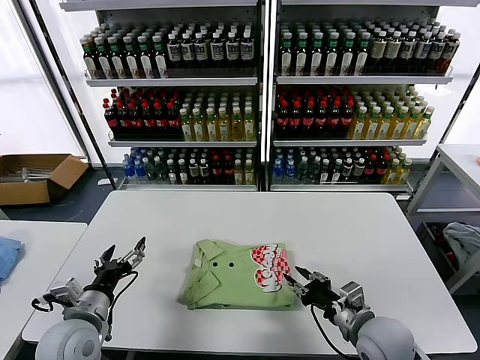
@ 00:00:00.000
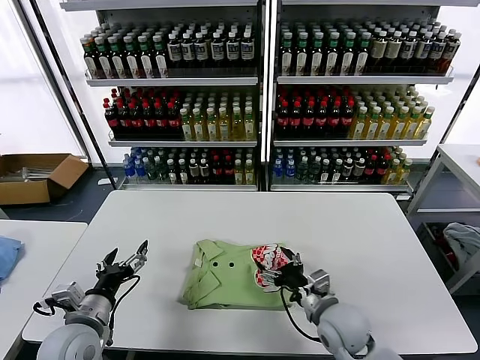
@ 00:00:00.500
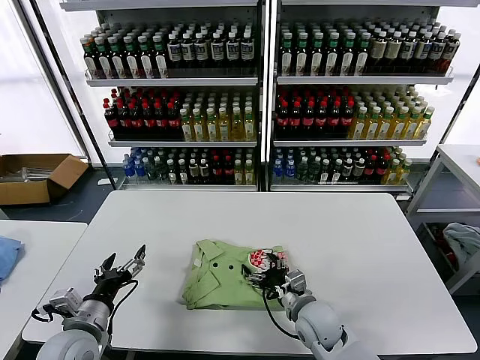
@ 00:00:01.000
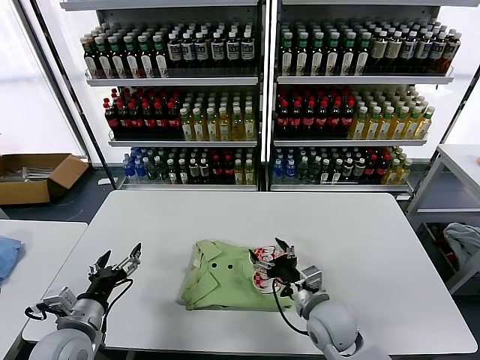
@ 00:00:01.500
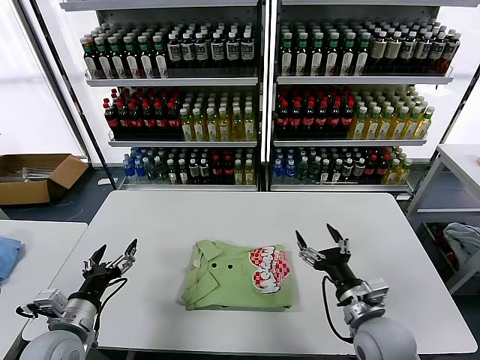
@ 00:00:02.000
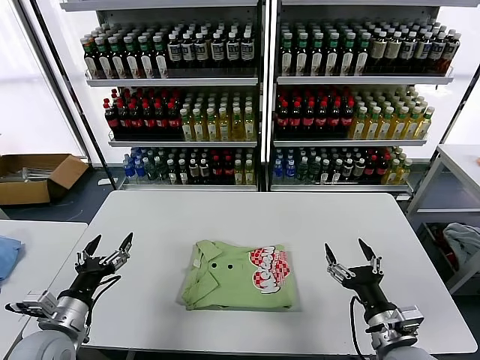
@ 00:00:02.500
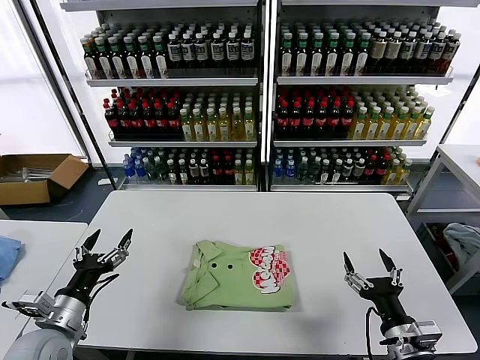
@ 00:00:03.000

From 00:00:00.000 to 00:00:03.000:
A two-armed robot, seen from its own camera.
Task of the whole recording: fold and organize the clothes.
From 00:00:00.000 to 00:00:01.500: The right gripper goes some 10 cm to the left, and opens up.
From 00:00:01.500 to 00:00:03.000: The right gripper heads to the right and backward, covering roughly 20 cm.

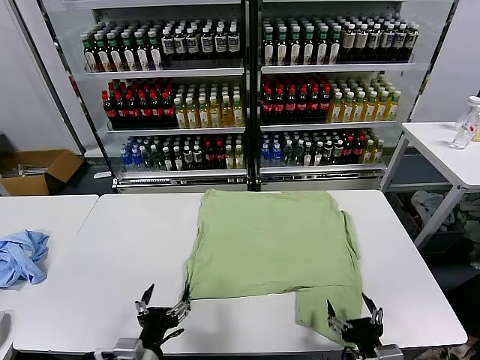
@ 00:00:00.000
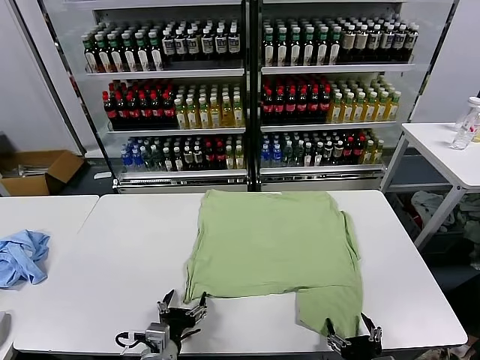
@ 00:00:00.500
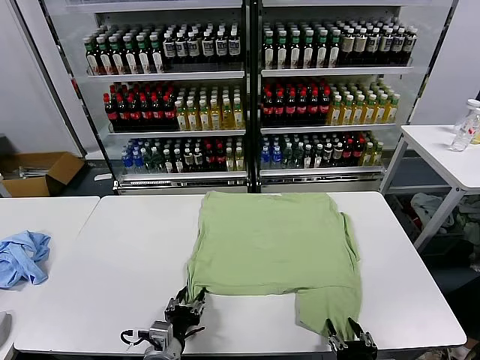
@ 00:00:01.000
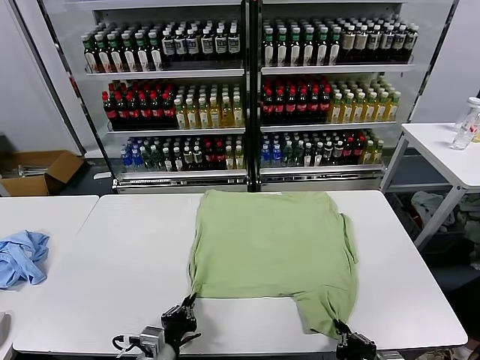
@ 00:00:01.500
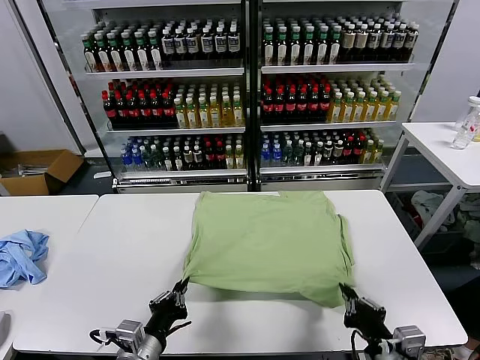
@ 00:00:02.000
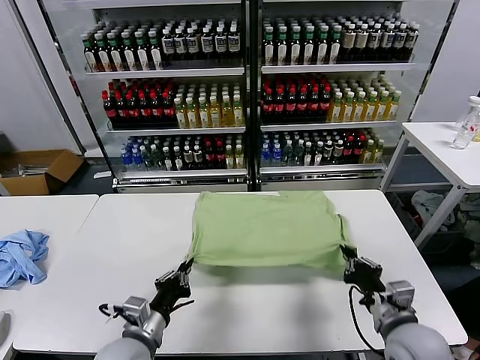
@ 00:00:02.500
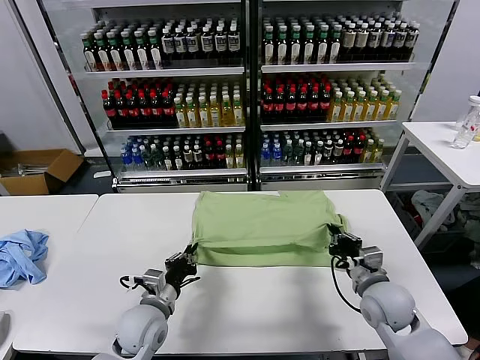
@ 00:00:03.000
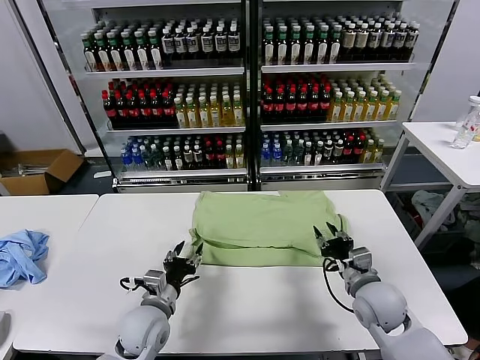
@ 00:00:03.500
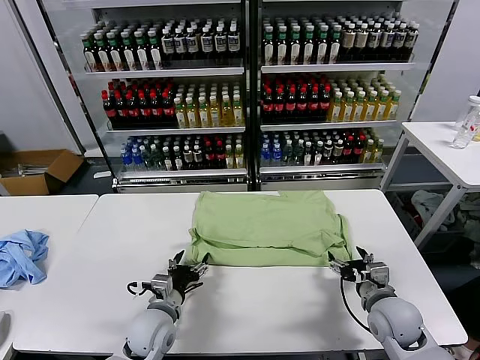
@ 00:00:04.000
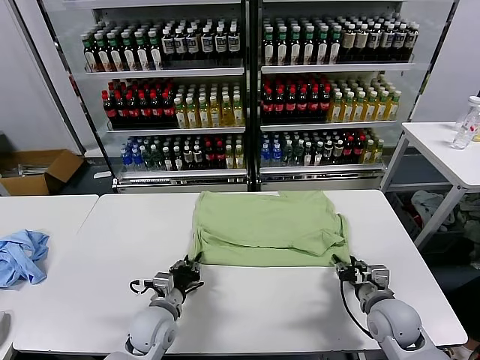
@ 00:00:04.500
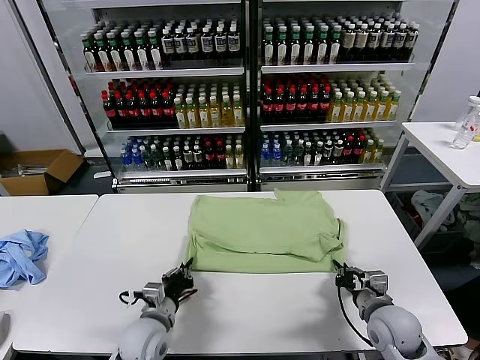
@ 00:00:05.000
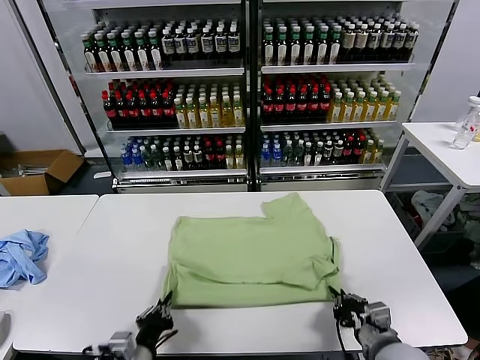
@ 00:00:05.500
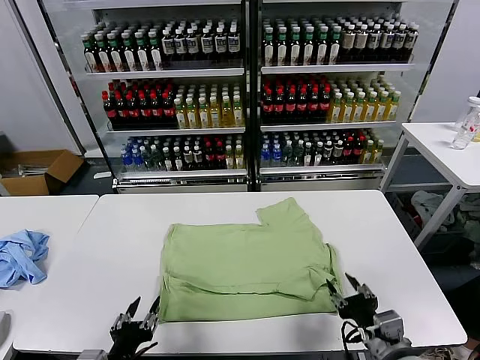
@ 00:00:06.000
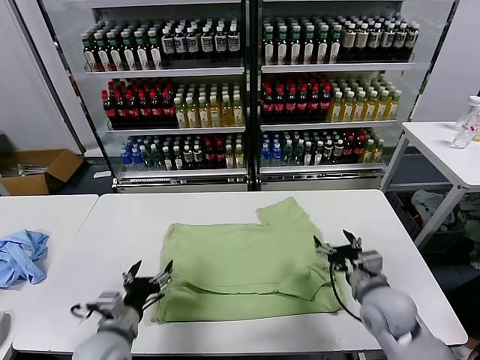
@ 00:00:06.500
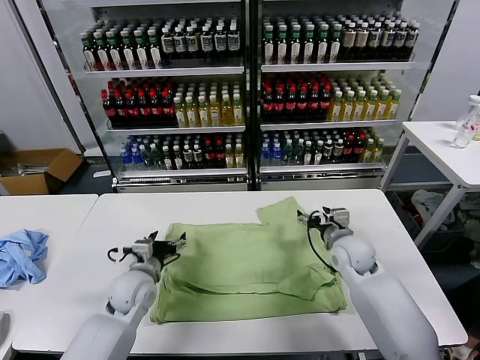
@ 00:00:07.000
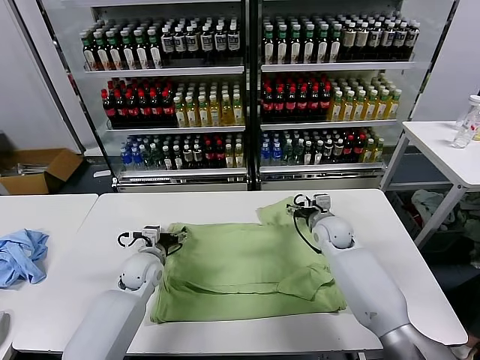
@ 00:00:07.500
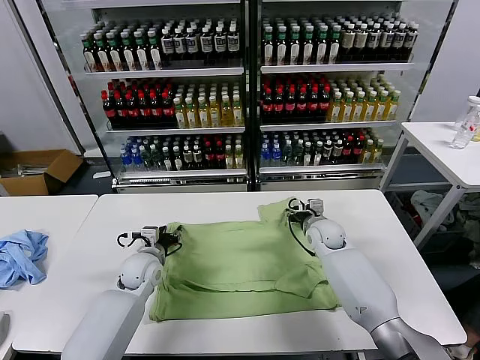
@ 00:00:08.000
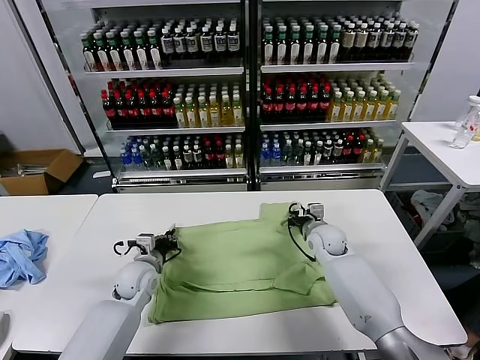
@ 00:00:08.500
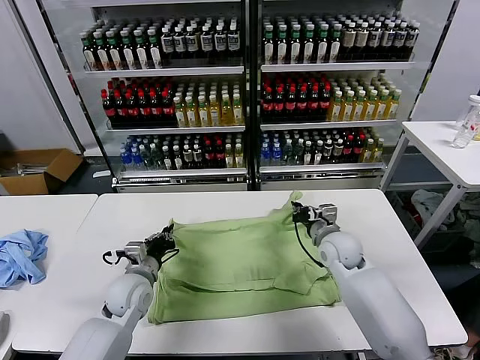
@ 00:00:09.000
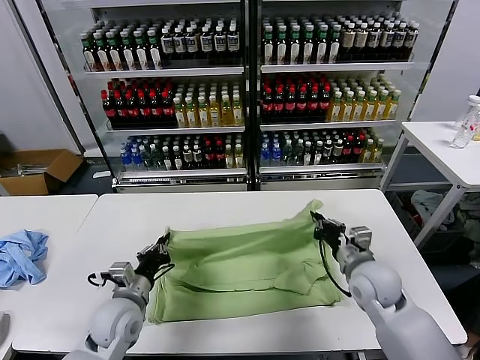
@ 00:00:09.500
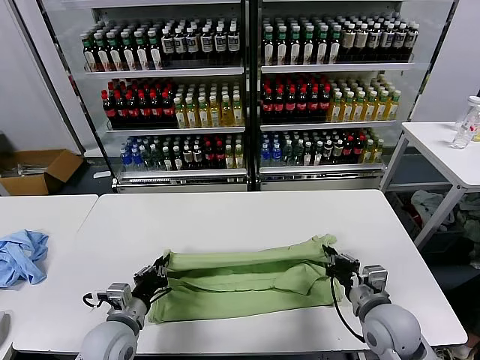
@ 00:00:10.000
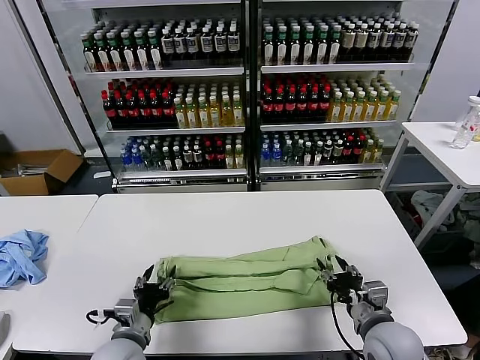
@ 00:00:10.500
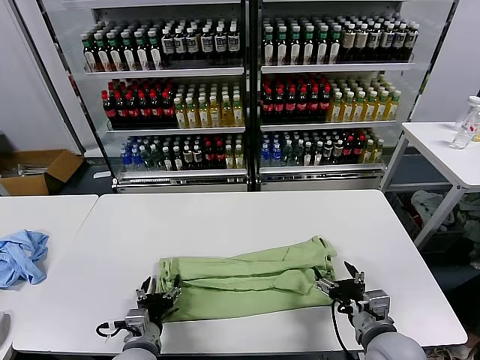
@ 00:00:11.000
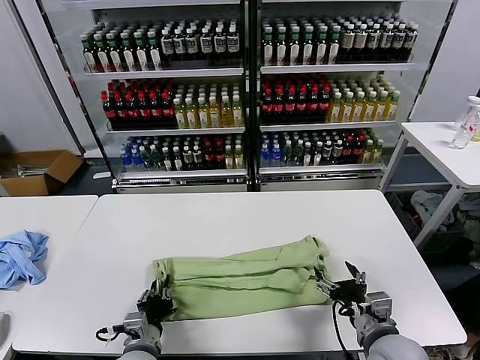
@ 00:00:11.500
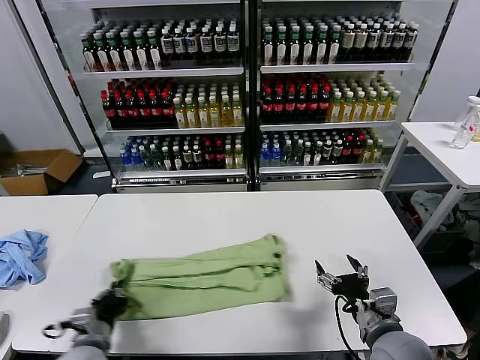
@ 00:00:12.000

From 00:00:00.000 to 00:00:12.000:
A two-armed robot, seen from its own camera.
Task of the whole recording: fold and organize the clothes.
Step, from 00:00:00.000 to 00:00:01.500: use both grippers simultaneously to clamp the lower edge of the clothing fabric.
Step, from 00:00:02.000 to 00:00:03.000: use both grippers to drag the lower edge of the fabric forward and fold it over the upper edge.
Step, from 00:00:04.000 to 00:00:05.500: Drag the clothes downward with both gripper.
Step, from 00:00:06.000 to 00:00:08.500: use both grippers simultaneously to clamp the upper edge of the clothing fabric.
Step, from 00:00:09.000 to 00:00:10.000: use both grippers to drag the upper edge of the fabric backward and fold it over the lower edge.
Step, from 00:00:10.500 to 00:00:11.500: use the left gripper to clamp the left edge of the fabric.
From 00:00:02.000 to 00:00:04.000: Both grippers travel together forward and downward, approximately 15 cm. The right gripper opens up, while the left gripper opens.
From 00:00:04.000 to 00:00:06.000: The right gripper is displaced backward and upward by roughly 10 cm, and closes and opens again. Meanwhile the left gripper travels backward by about 15 cm, and closes, then reopens.
From 00:00:06.000 to 00:00:08.000: The two grippers go some 30 cm forward. The left gripper opens, then closes once more.
From 00:00:08.000 to 00:00:10.000: Both grippers move backward, about 20 cm. The left gripper closes, while the right gripper closes.
From 00:00:10.000 to 00:00:12.000: The right gripper shifts approximately 5 cm backward, and opens its fingers, while the left gripper moves to the left, roughly 5 cm, and opens, then closes once more.

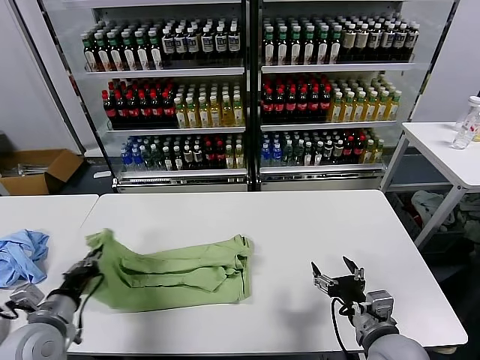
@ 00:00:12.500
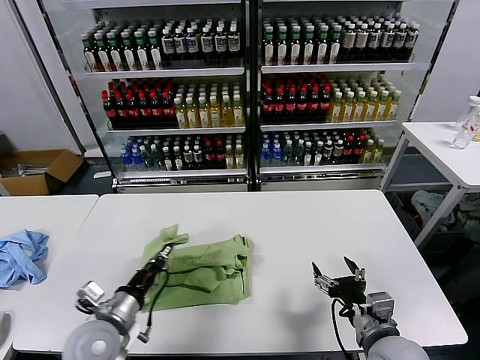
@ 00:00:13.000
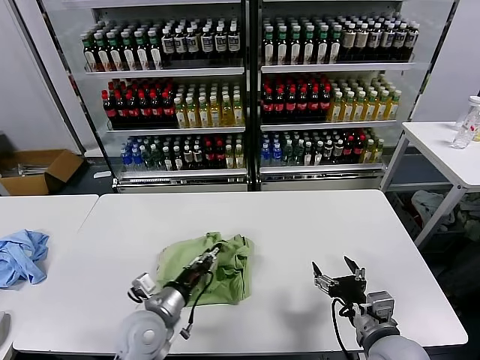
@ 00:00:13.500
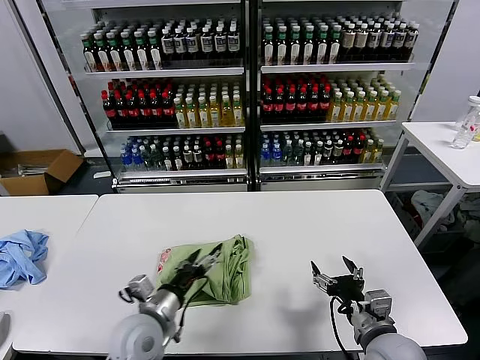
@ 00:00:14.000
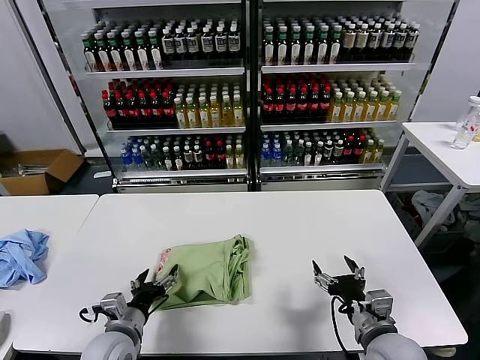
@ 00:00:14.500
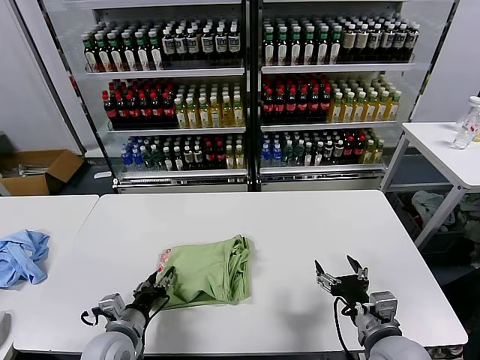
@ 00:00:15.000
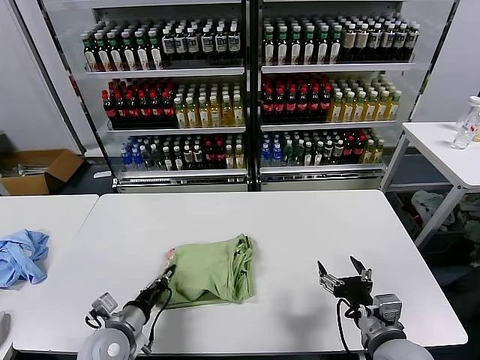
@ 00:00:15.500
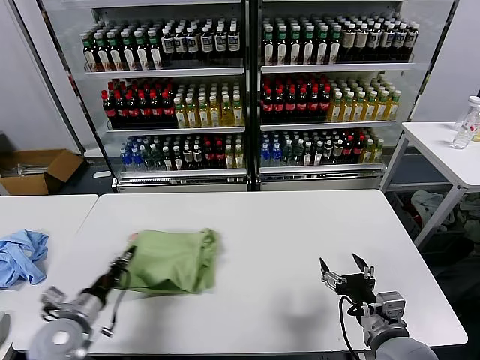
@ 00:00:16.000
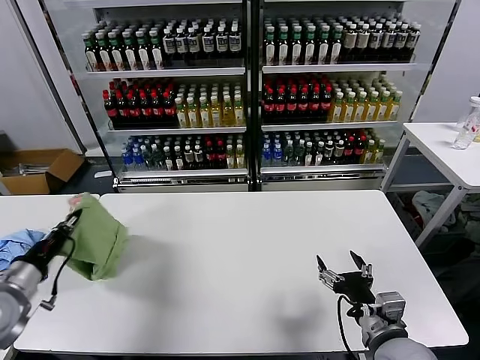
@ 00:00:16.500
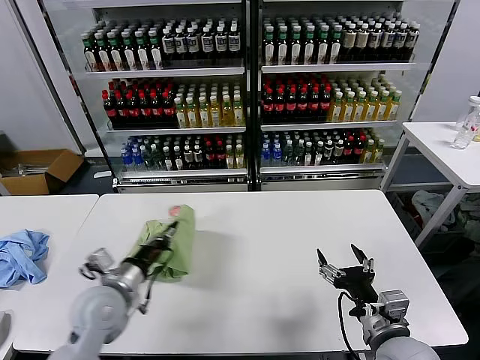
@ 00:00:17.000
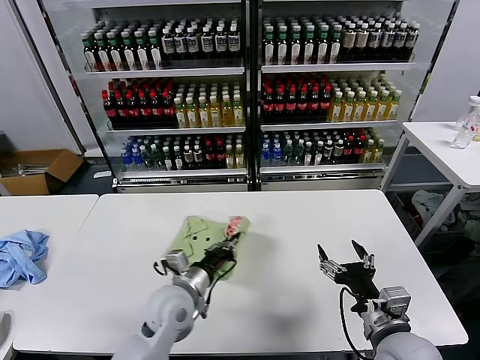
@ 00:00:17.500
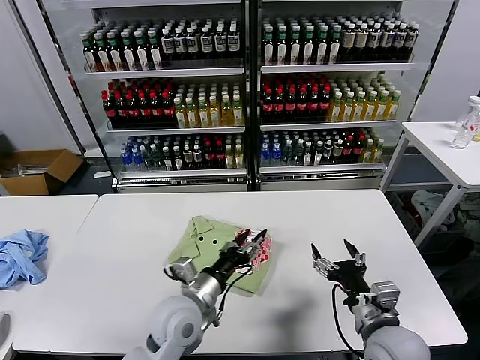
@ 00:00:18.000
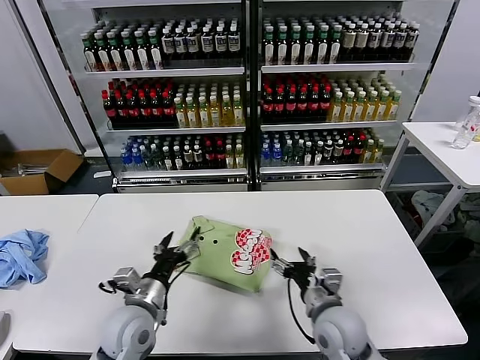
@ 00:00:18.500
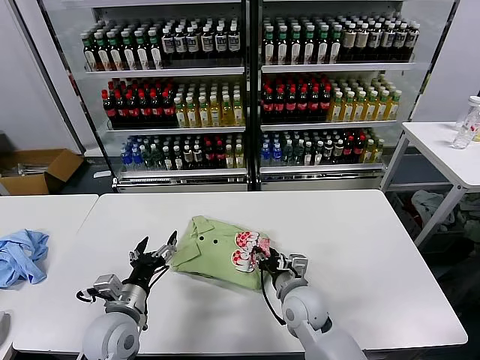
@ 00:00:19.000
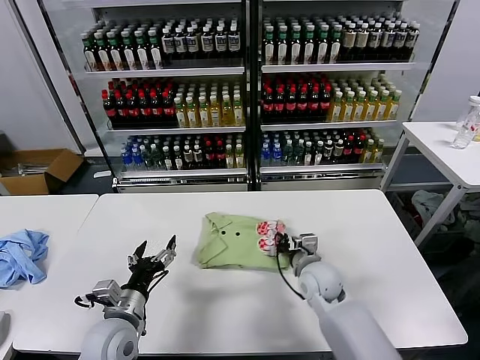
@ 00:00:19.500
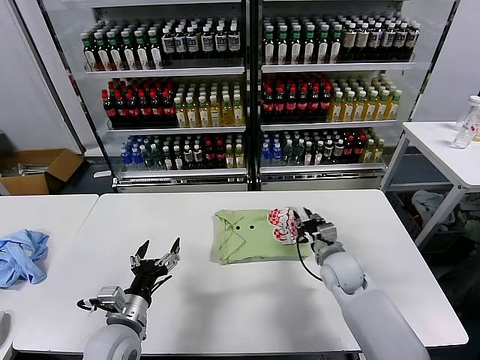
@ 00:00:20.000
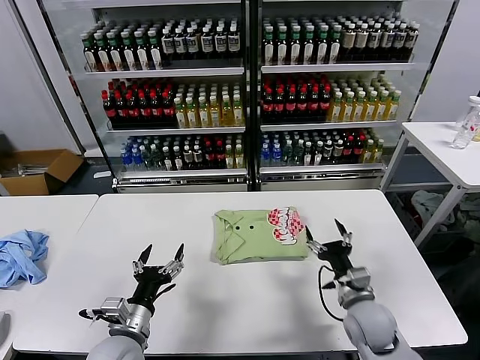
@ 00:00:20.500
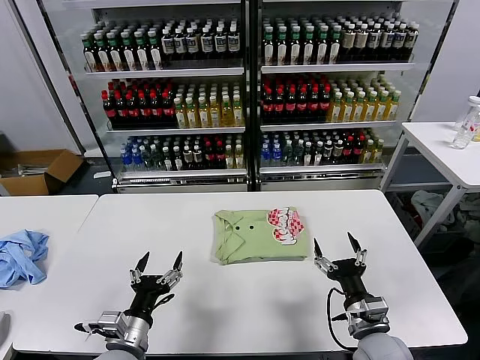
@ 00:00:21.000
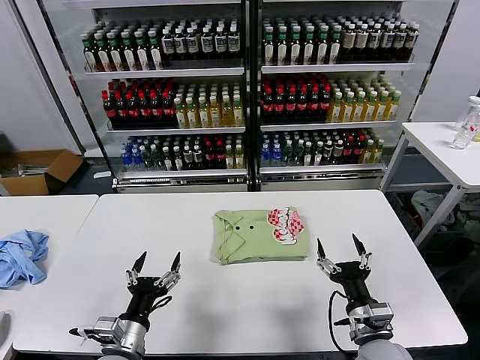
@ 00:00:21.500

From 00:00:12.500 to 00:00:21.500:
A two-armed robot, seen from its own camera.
Task of the whole recording: fold and organize the clothes.
Step, from 00:00:14.000 to 00:00:17.500: Flip the folded clothes over with left gripper.
Step, from 00:00:18.500 to 00:00:20.000: Drag the clothes to the center of the table.
From 00:00:12.500 to 00:00:14.500: The left gripper moves to the right and downward, about 15 cm, and opens up.
From 00:00:14.500 to 00:00:17.000: The left gripper travels upward and forward by roughly 10 cm, moves roughly 20 cm to the left and comes back, and closes up.
From 00:00:17.000 to 00:00:19.500: The right gripper travels forward, to the left and downward by about 25 cm, and closes its fingers; the left gripper shifts about 5 cm downward, moves about 15 cm to the right and comes back, and opens.
From 00:00:19.500 to 00:00:21.500: The left gripper is displaced backward by roughly 5 cm; the right gripper heads backward and to the right, covering roughly 20 cm, and opens.
